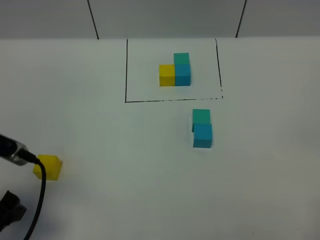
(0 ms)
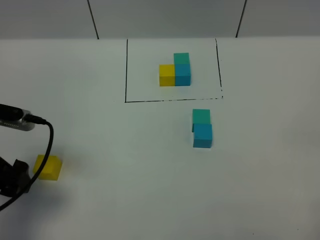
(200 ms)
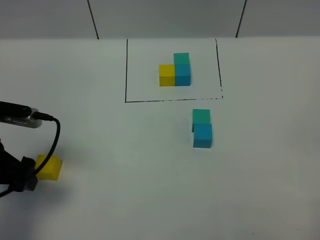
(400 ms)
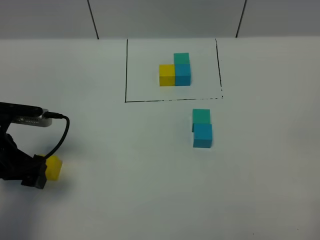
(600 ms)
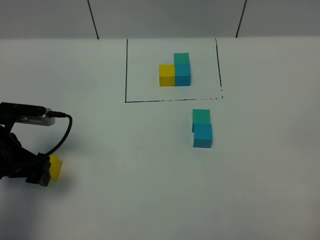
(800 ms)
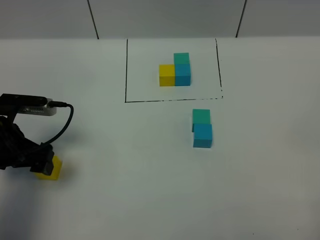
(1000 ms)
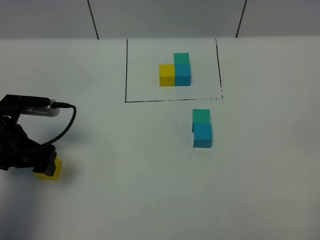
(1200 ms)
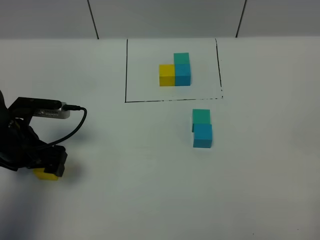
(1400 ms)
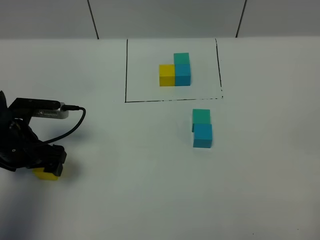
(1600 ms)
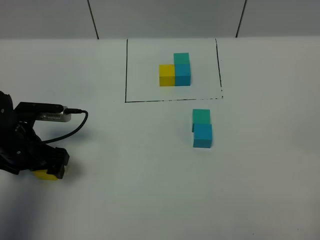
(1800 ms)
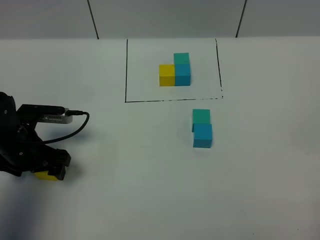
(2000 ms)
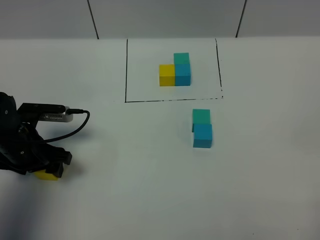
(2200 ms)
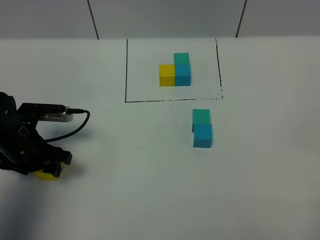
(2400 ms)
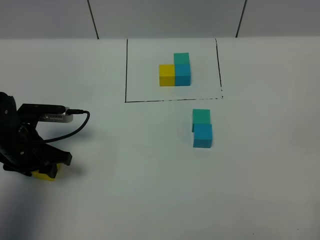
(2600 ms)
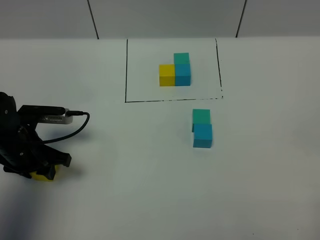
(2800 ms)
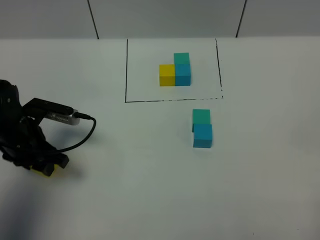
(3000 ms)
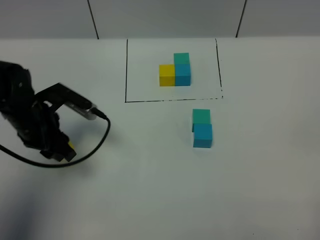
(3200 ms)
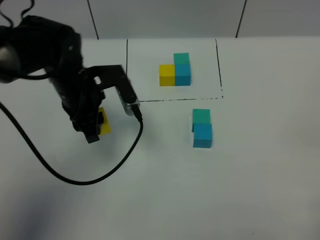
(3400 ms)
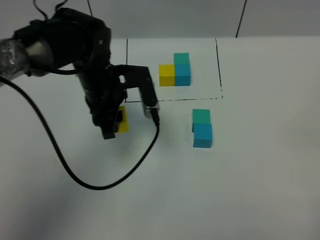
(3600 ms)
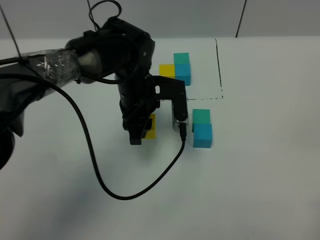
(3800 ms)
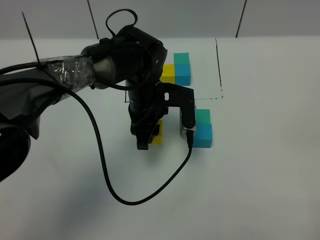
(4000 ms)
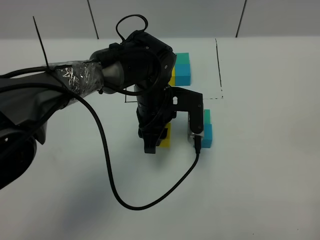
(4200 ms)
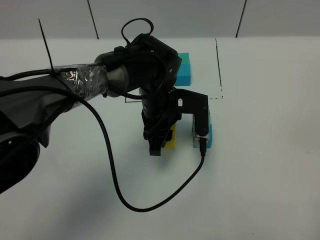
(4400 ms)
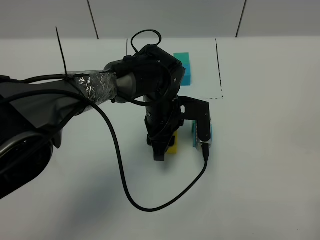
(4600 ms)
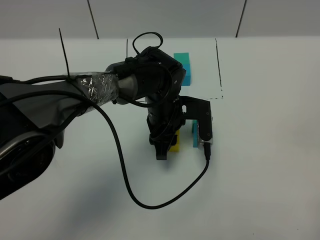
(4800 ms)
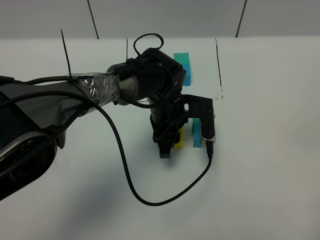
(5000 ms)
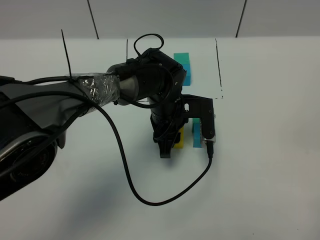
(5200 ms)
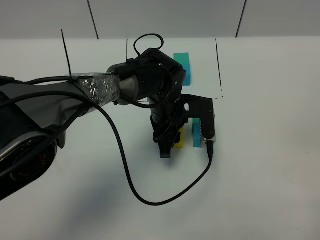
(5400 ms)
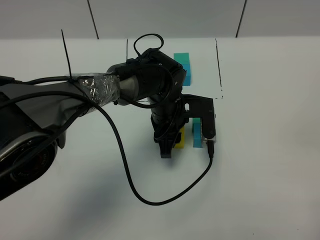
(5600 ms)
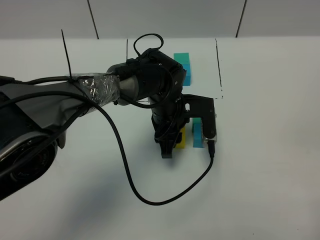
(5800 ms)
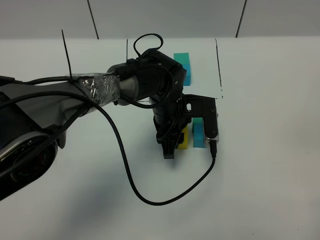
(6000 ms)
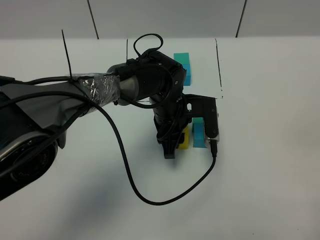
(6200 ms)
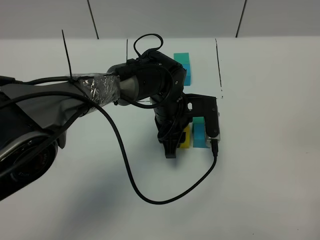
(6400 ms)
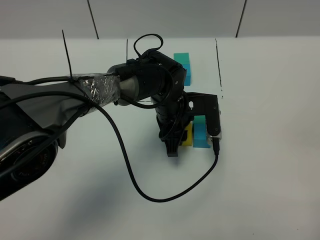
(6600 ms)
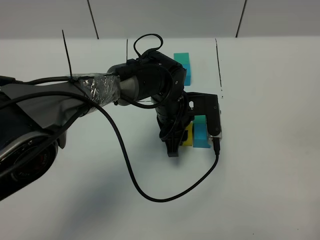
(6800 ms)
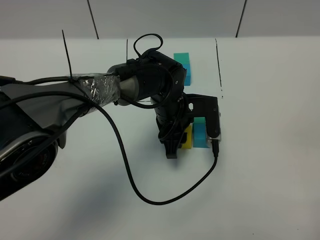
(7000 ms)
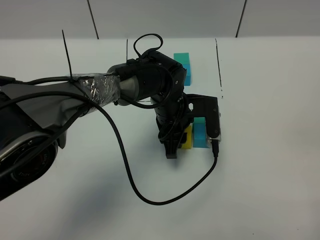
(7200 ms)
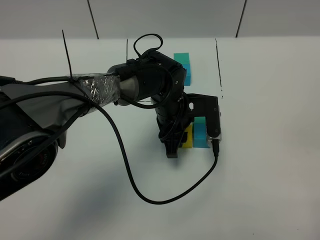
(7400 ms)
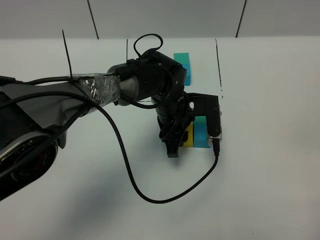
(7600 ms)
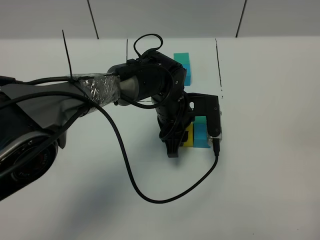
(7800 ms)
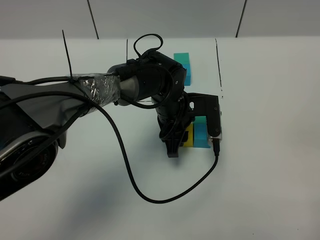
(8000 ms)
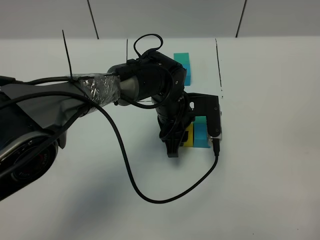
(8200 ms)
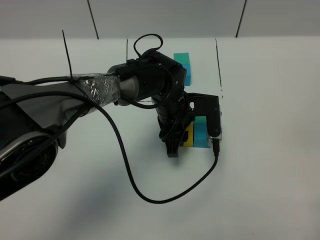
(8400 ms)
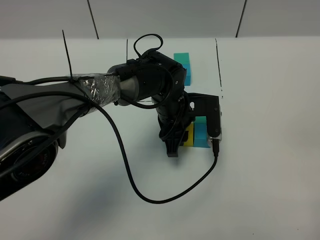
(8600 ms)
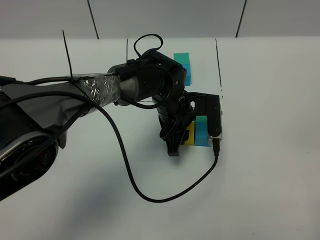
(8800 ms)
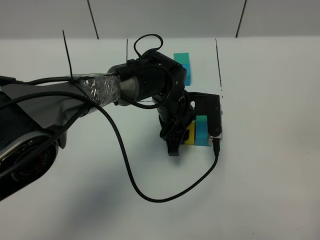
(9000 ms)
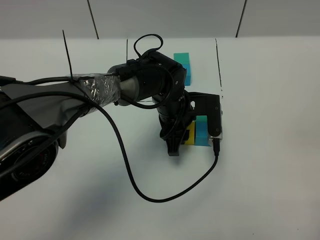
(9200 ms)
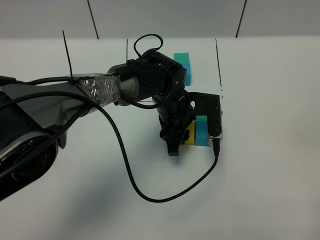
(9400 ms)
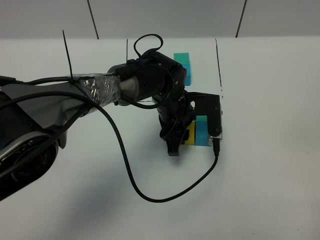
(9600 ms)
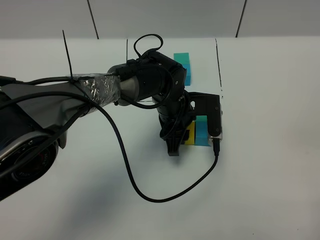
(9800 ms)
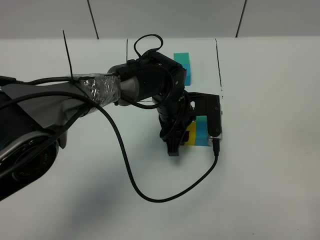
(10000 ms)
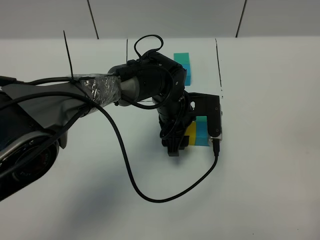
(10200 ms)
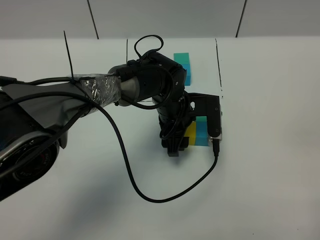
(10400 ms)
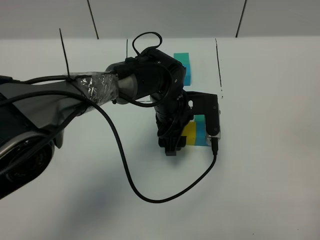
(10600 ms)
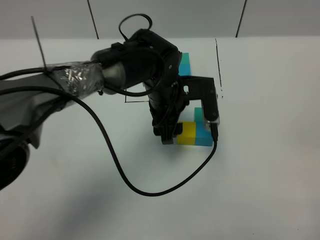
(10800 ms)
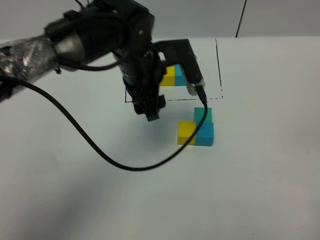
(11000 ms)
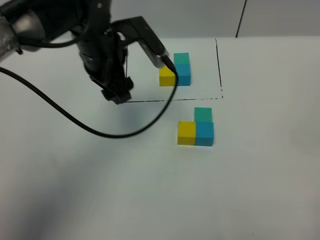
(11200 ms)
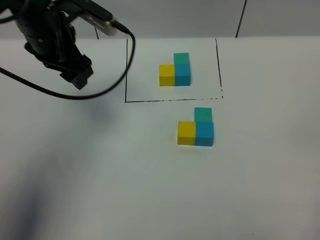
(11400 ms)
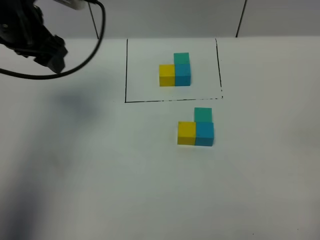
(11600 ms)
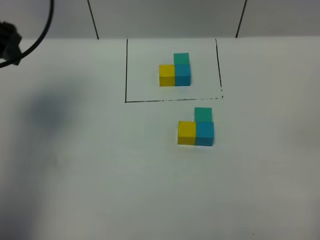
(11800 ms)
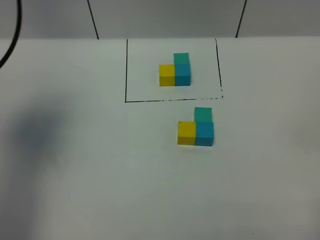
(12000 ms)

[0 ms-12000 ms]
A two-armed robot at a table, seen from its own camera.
Task of the whole recording: According to the building block template in front, assemble the scattered blocks together.
Step, 0 ms to 10000 ms: Put the yellow build block on the left of the blue build block.
0 ms to 1600 ms: The left gripper heads forward and downward, covering approximately 15 cm.
1600 ms to 3000 ms: The left gripper closes up.
3000 ms to 4400 ms: The left gripper travels to the right by about 25 cm.
4400 ms to 6000 ms: The grippers make only small movements.
6000 ms to 7600 ms: Both grippers stay about where they are.
7600 ms to 9000 ms: Neither gripper changes place.
9000 ms to 10400 ms: The left gripper opens.
10400 ms to 12000 ms: The left gripper heads to the left and upward, covering approximately 40 cm.

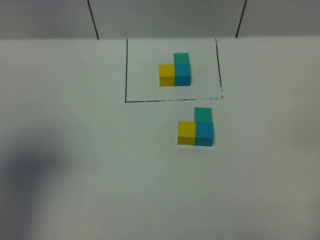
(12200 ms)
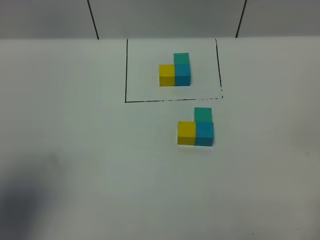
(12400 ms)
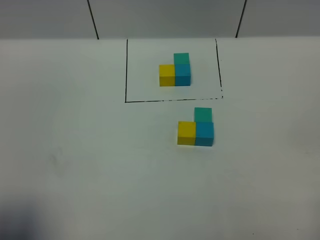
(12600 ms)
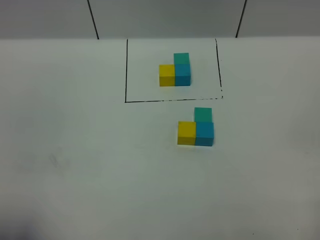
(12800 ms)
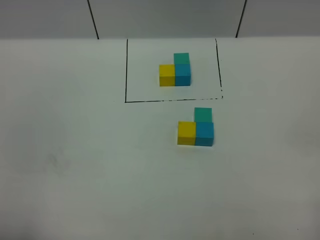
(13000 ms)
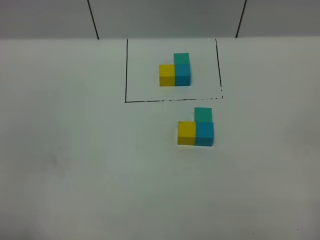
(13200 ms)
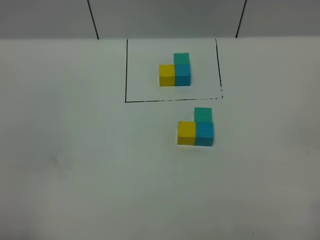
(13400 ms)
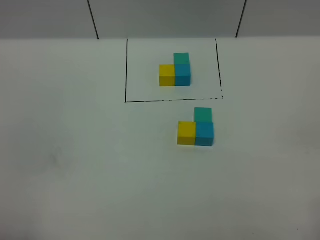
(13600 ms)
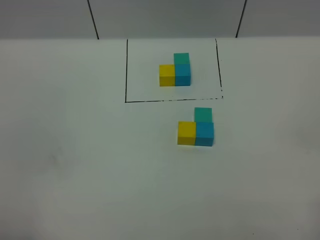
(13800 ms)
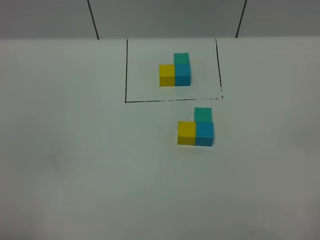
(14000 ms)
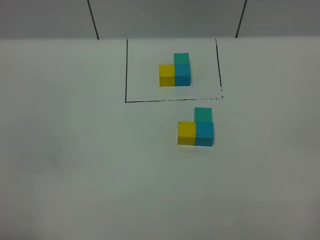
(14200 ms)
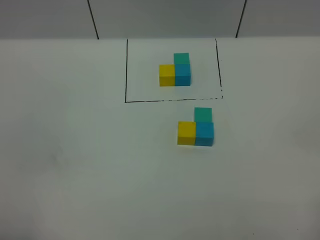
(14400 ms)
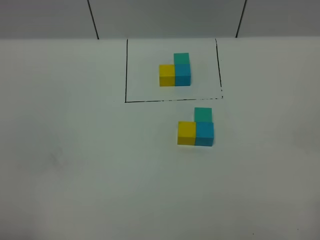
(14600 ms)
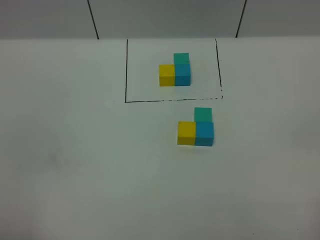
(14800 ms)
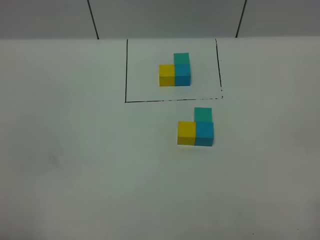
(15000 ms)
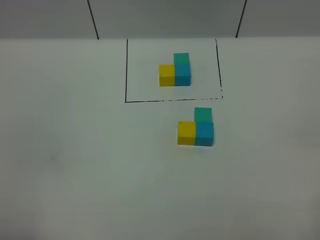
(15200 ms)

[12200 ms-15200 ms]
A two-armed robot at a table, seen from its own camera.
Task of the whole recording: According to the building block template in front, assemble the scattered blocks together.
12200 ms to 13800 ms: The left gripper is displaced backward and downward by roughly 20 cm.
13800 ms to 15200 ms: Neither gripper changes place.

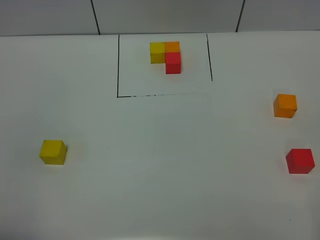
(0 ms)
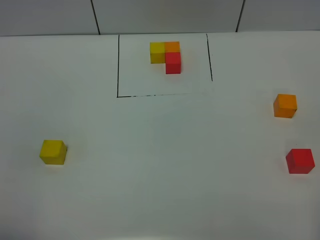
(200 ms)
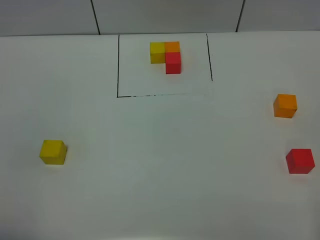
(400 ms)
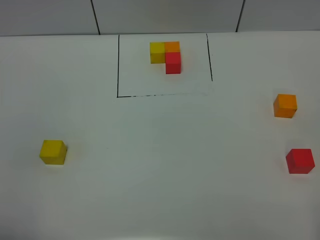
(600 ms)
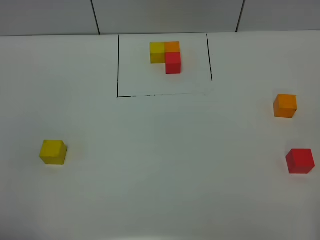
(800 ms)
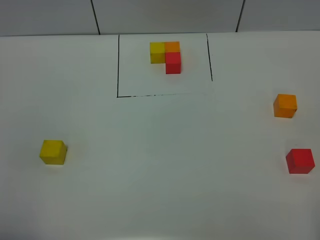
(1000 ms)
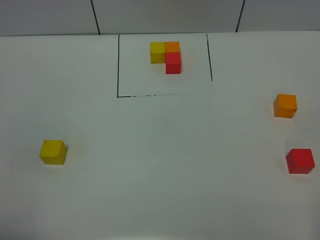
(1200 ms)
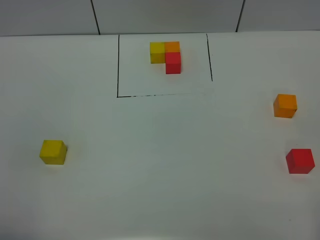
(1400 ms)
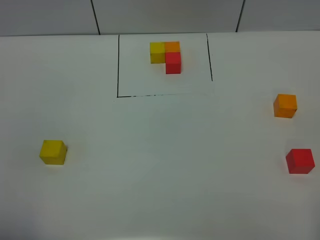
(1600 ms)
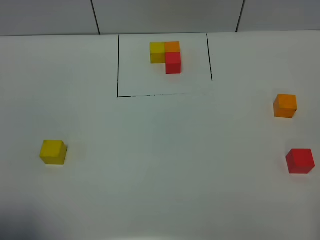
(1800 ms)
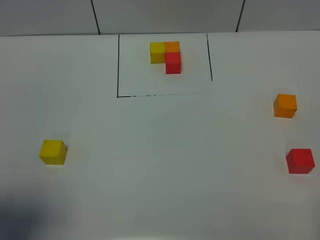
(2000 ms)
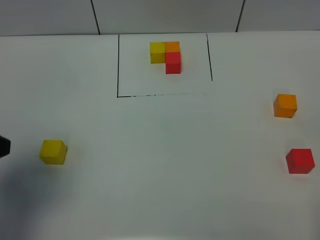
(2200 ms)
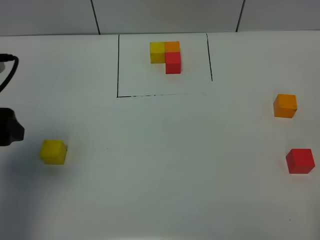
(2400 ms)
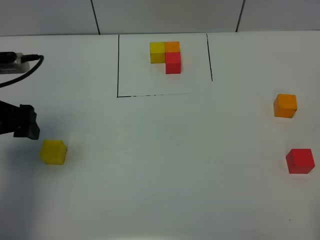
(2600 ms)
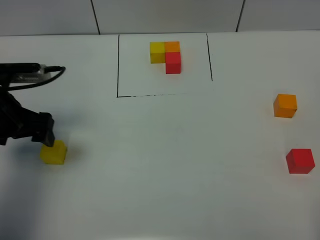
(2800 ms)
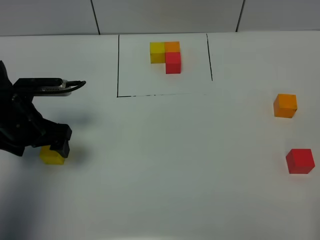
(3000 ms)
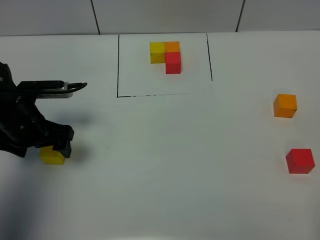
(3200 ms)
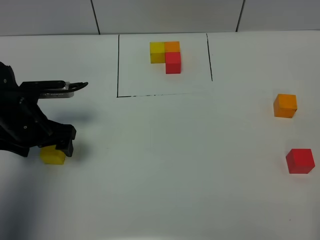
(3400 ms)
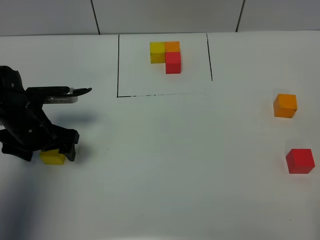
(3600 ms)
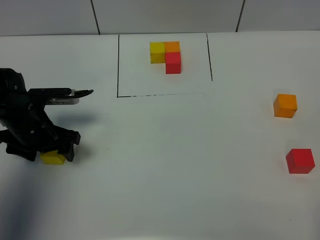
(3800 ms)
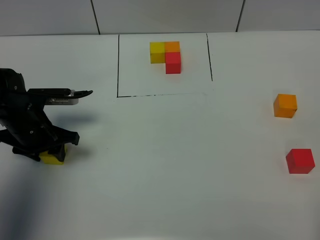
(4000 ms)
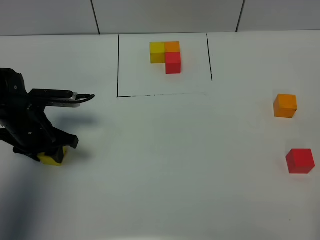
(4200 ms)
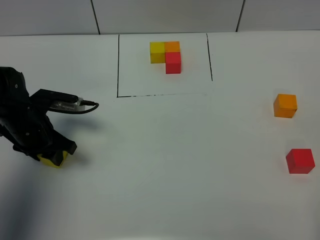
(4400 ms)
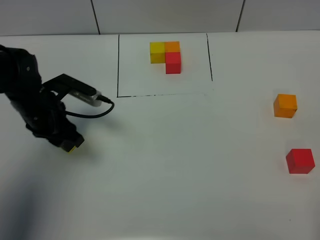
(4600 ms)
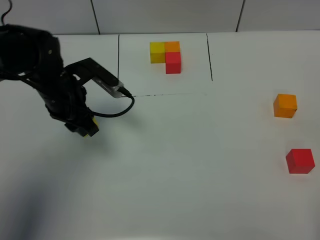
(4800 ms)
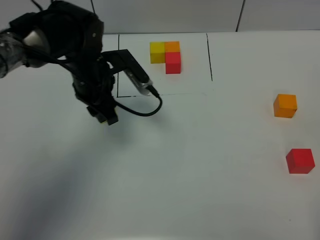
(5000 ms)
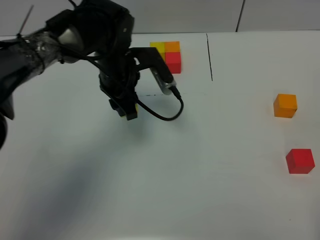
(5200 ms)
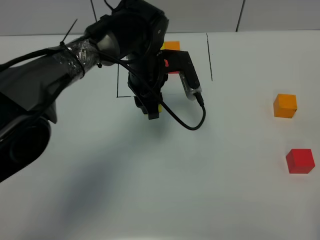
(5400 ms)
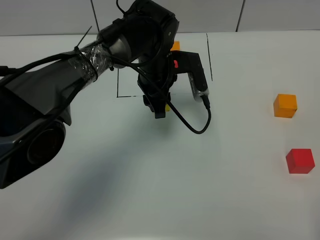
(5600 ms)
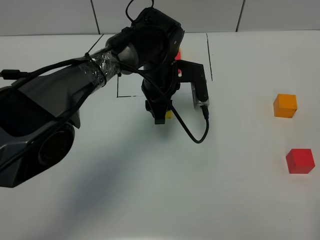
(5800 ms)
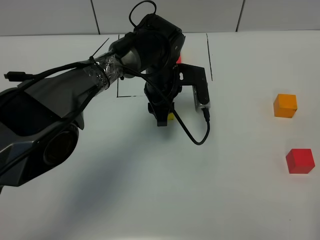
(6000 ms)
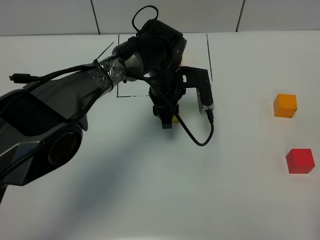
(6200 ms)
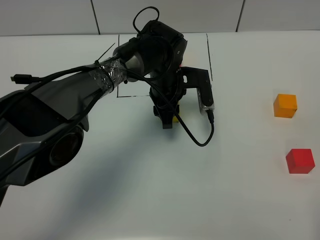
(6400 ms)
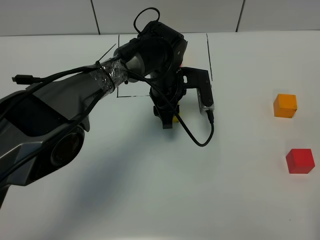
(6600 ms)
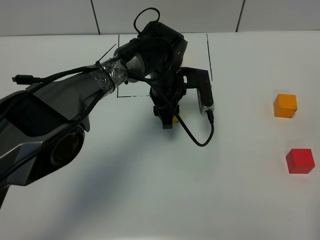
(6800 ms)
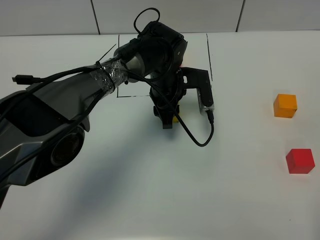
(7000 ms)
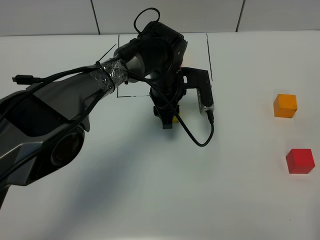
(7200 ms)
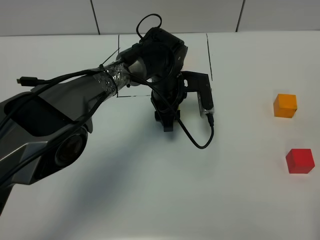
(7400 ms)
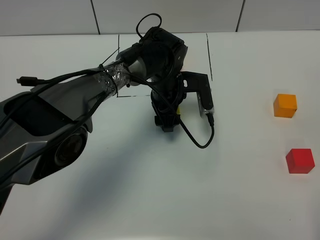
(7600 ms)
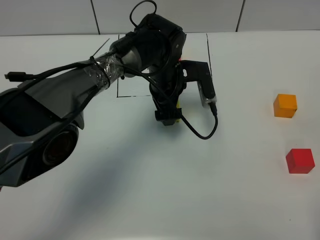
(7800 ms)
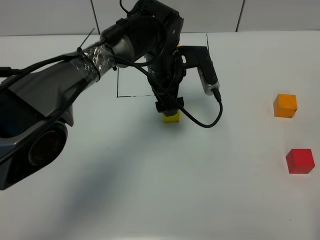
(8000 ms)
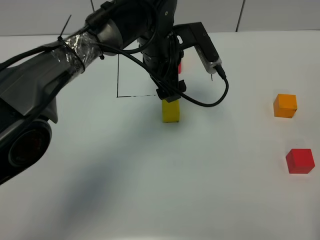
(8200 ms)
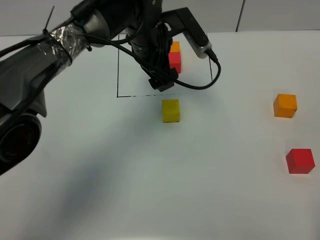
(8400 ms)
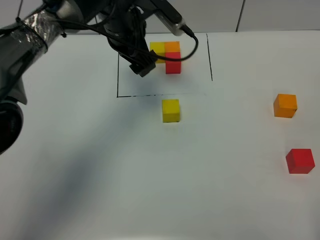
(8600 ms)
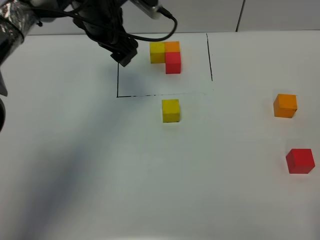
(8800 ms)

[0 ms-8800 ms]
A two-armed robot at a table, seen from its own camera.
Task of the whole recording: According to the building block template in front, assemble the scattered blocks together.
Step, 0 ms to 7400 ms: Put the yellow build block in the center of the table.
0 ms to 1400 ms: Both grippers stay about where they are.
1400 ms to 3000 ms: The left gripper is displaced forward by some 30 cm.
3000 ms to 4400 ms: The left gripper closes its fingers.
4400 ms to 5800 ms: The left gripper shifts approximately 25 cm to the right and forward.
5800 ms to 7400 ms: The left gripper opens its fingers.
7400 ms to 8800 ms: The left gripper travels upward and to the left by approximately 20 cm, and opens.
